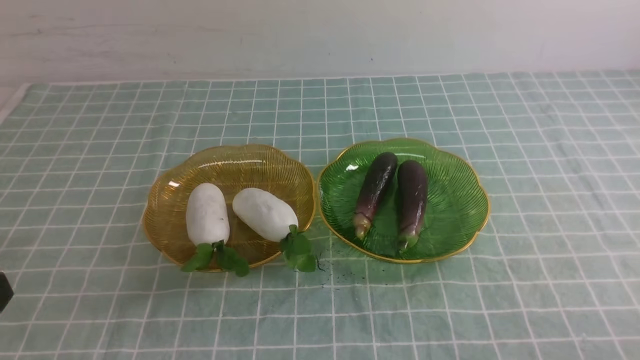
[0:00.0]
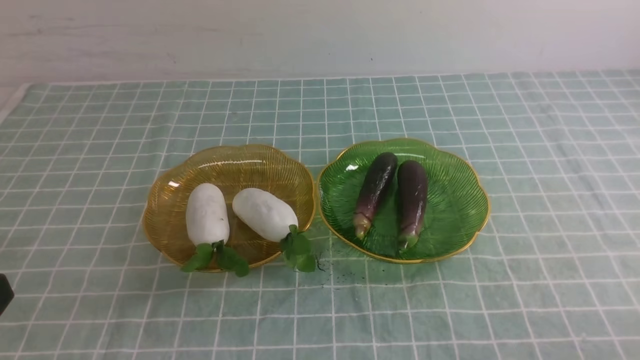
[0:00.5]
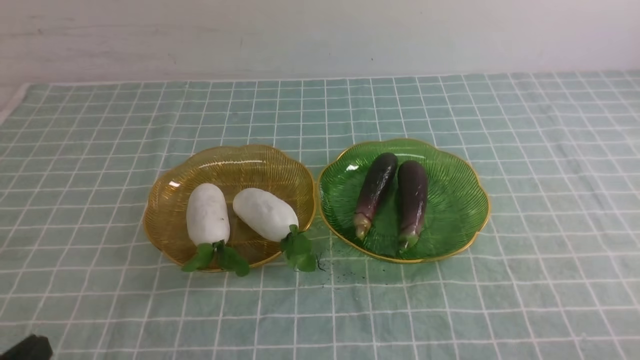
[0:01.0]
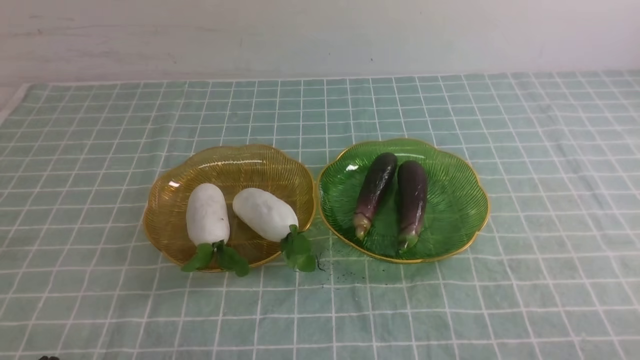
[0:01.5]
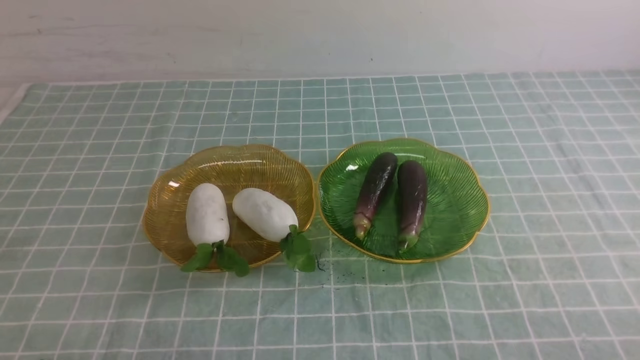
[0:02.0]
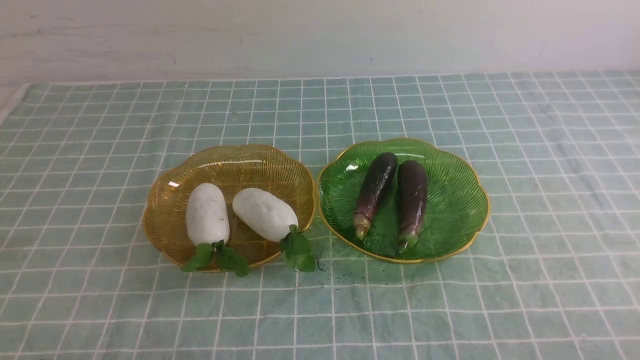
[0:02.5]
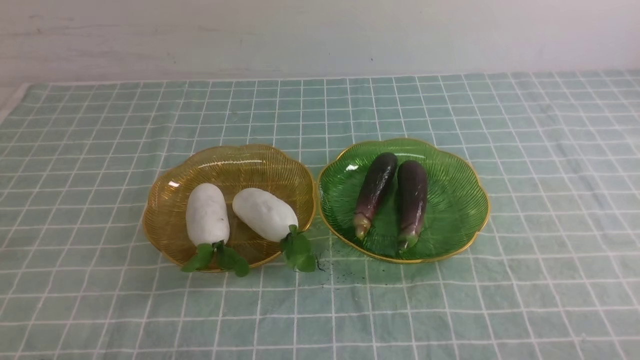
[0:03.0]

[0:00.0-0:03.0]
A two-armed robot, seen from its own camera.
0:01.5 to 0:03.0: The two grippers keep their place.
